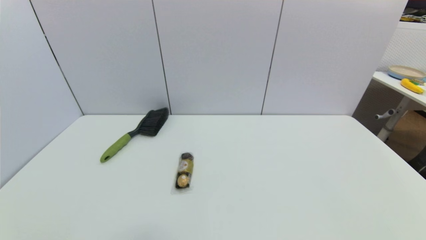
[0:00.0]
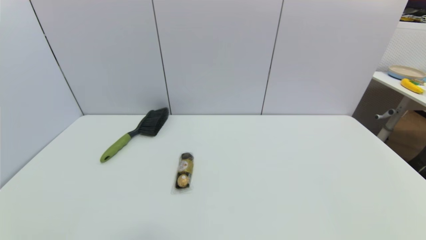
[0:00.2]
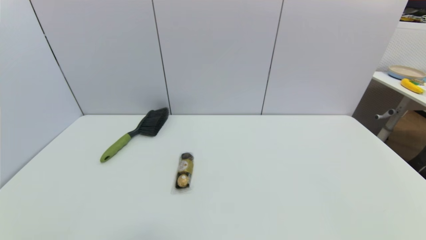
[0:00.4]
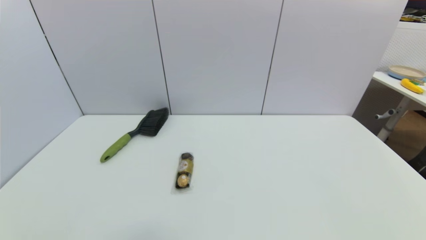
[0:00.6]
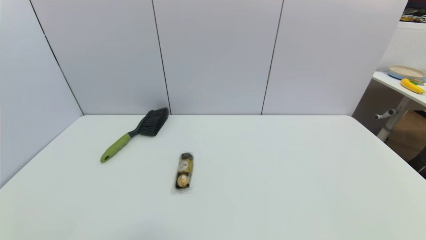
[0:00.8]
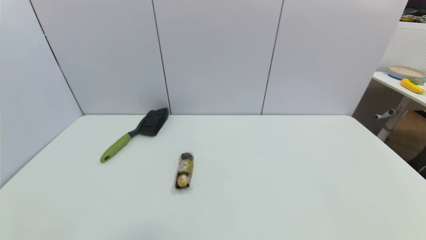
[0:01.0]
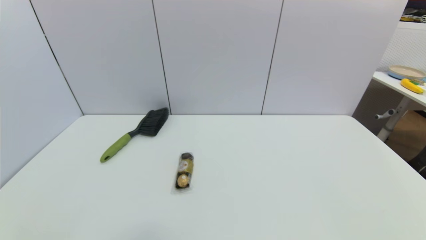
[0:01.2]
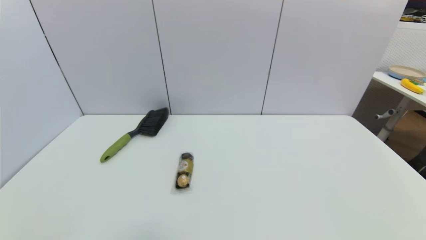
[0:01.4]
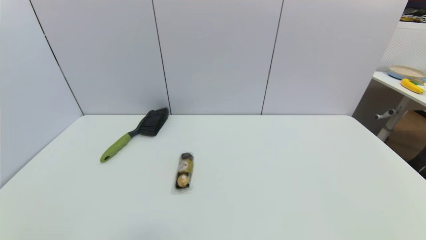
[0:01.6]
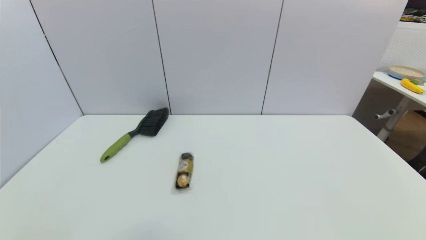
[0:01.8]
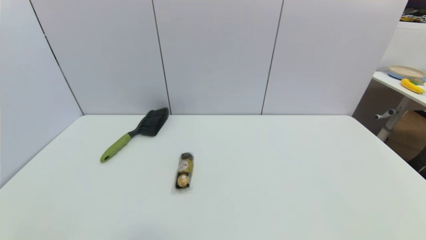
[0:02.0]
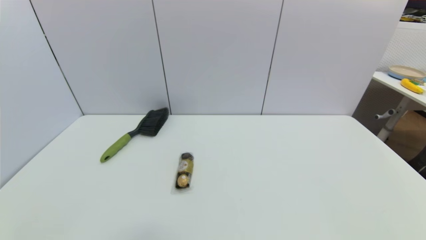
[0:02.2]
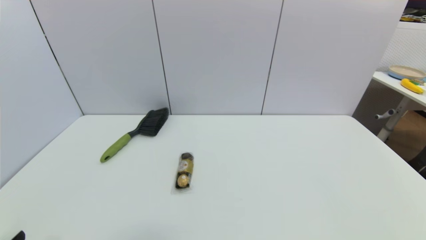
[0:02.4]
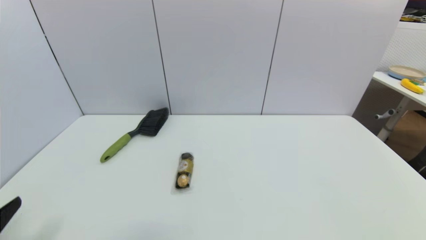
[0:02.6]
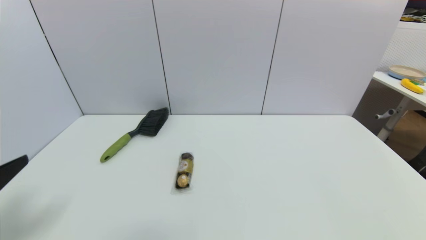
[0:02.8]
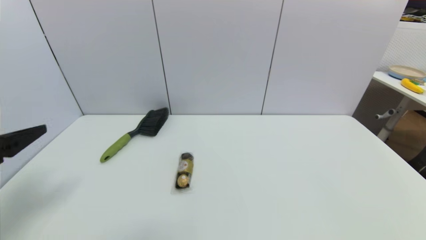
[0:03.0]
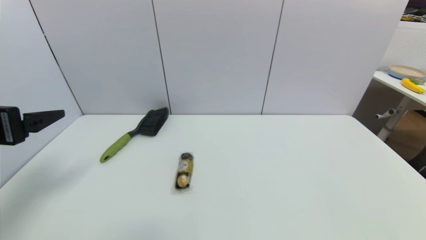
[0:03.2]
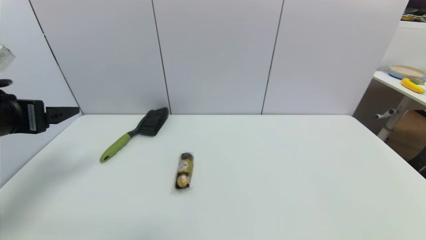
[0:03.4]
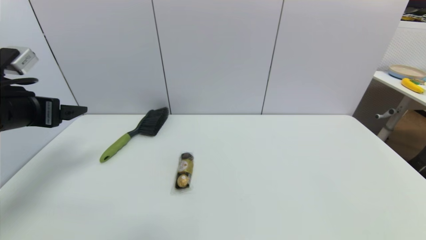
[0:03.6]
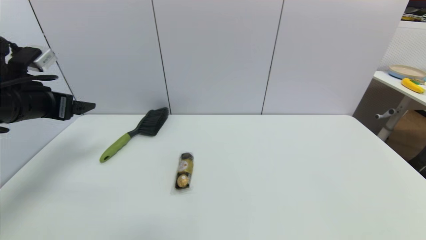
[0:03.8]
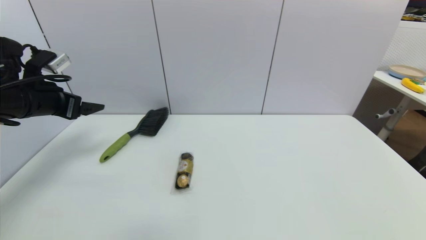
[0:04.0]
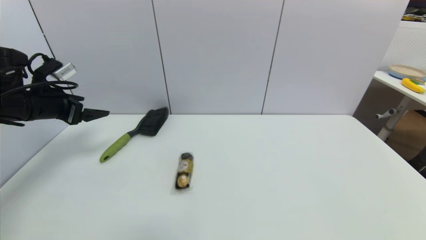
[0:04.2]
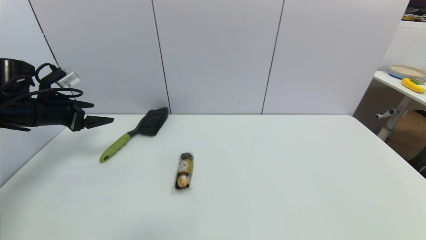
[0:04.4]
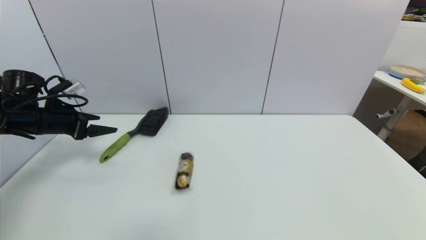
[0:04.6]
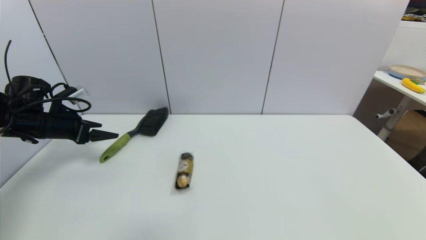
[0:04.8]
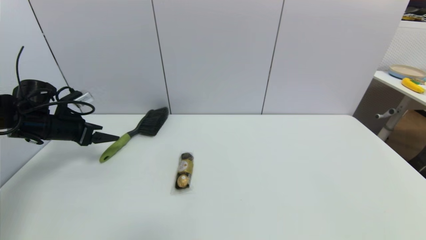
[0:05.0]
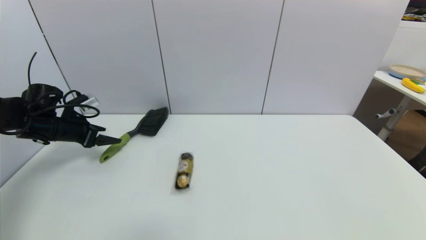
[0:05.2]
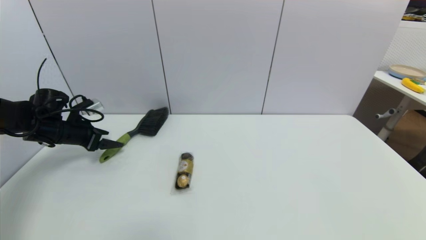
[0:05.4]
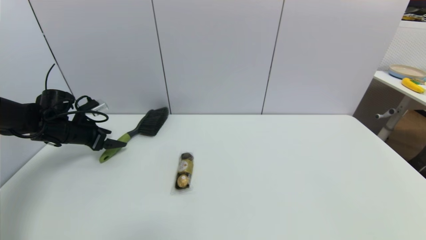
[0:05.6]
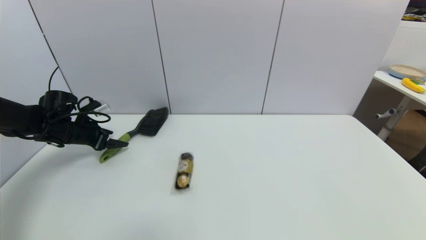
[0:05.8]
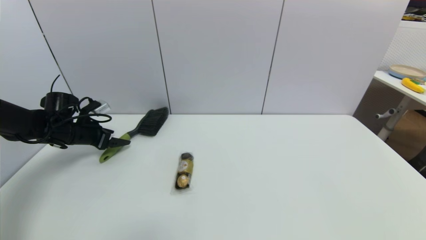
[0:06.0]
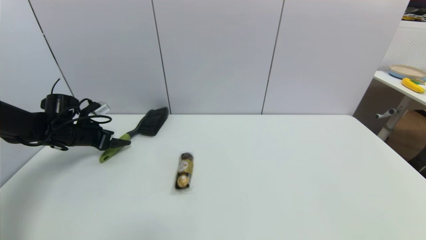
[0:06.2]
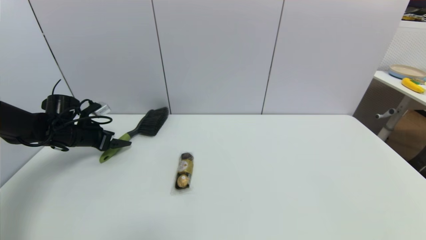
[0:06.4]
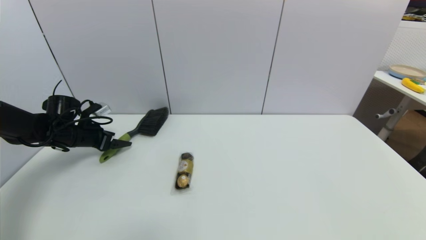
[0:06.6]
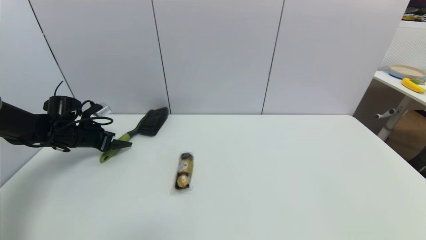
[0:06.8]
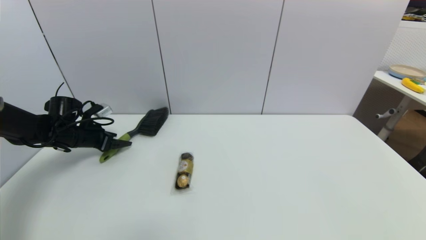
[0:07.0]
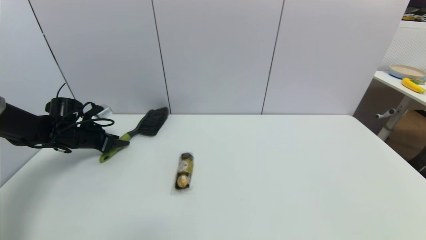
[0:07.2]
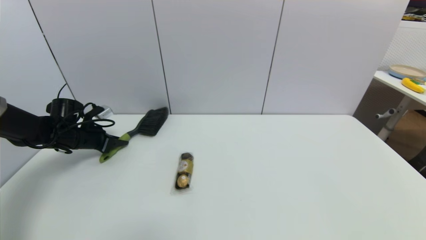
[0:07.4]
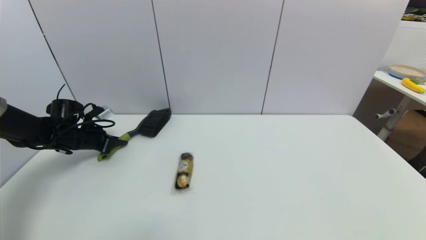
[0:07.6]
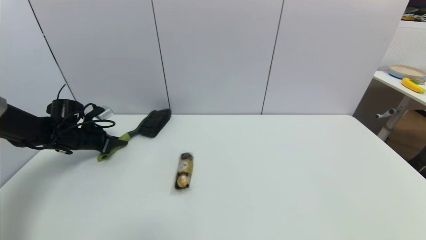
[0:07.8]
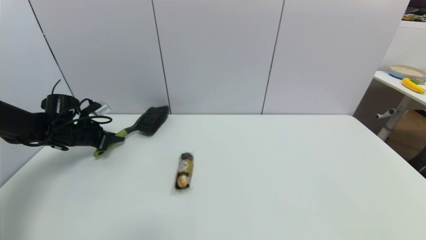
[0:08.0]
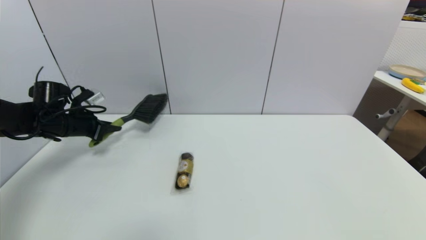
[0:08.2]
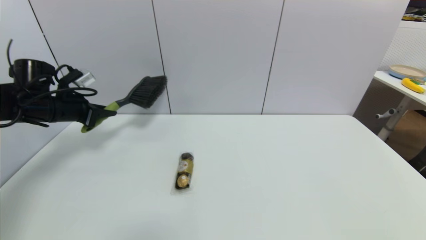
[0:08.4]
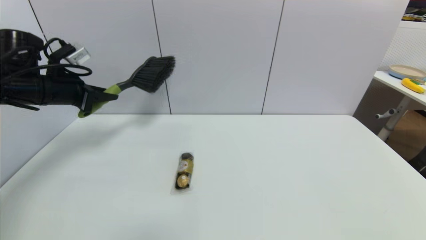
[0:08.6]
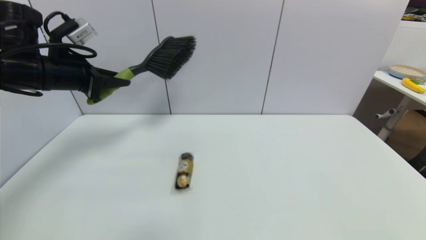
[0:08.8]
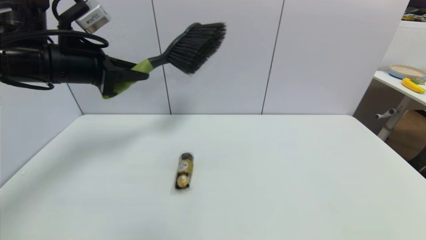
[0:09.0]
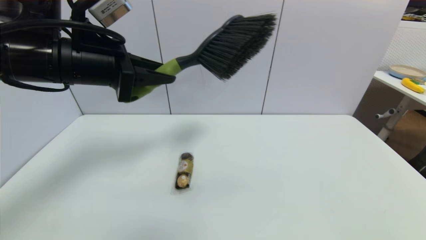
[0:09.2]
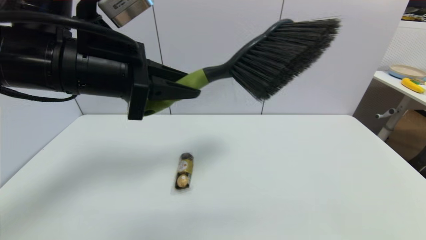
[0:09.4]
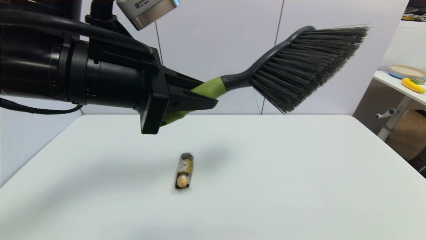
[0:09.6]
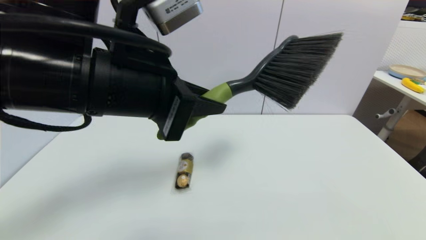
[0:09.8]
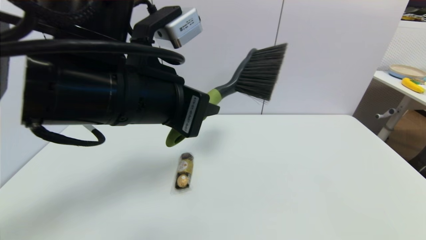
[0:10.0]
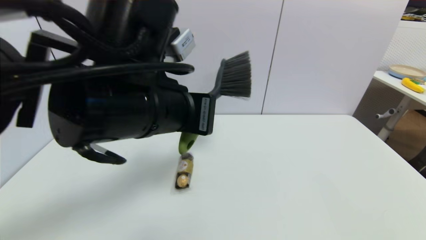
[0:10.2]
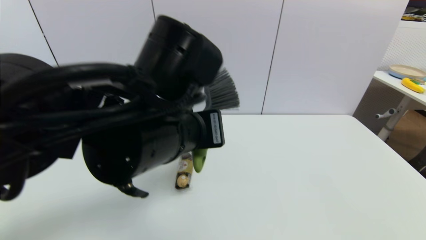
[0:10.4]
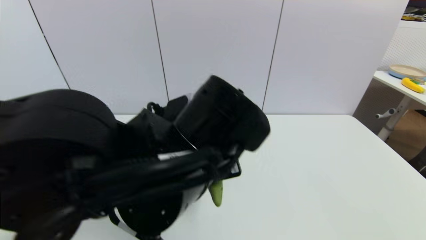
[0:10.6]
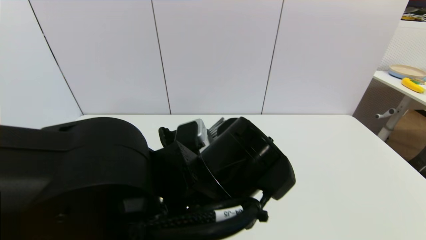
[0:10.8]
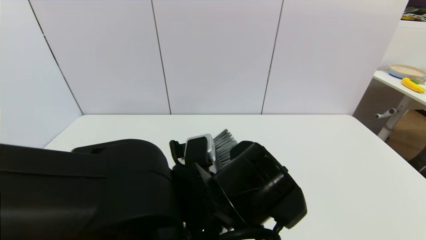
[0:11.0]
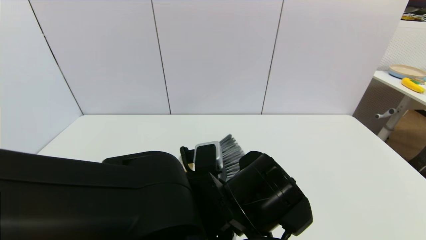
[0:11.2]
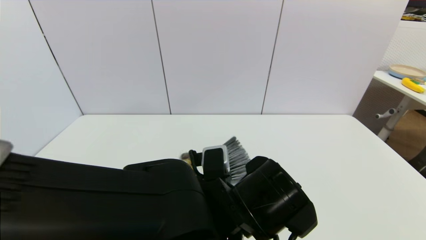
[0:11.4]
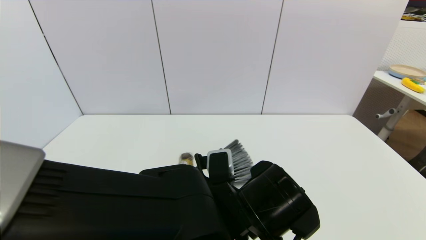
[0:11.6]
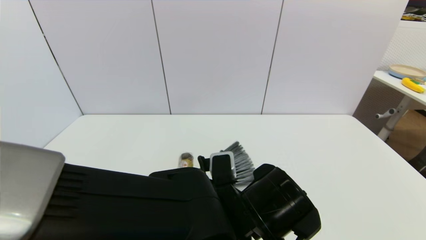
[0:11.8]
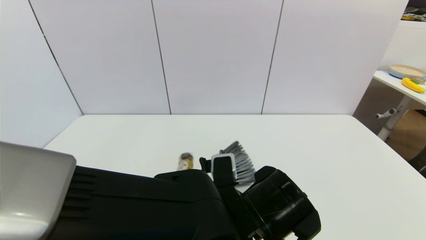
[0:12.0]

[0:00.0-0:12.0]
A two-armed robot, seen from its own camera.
Task of the whole recording: put the brush in the designated position.
Step, 0:02.4 to 0:08.2: Grasp the brush with left gripper.
0:00.0 to 0:01.6: The two grippers keep their place.
0:01.6 to 0:03.0: The left gripper moves upward and forward, about 25 cm.
0:03.0 to 0:04.4: The left gripper moves forward, roughly 20 cm.
0:04.4 to 0:06.0: The left gripper moves downward and forward, roughly 10 cm.
0:06.0 to 0:07.6: The left gripper closes up.
0:07.6 to 0:09.0: The left gripper shifts approximately 30 cm upward, to the right and backward.
0:09.0 to 0:10.4: The left gripper heads to the right and backward, covering about 20 cm.
0:10.4 to 0:12.0: The left gripper shifts roughly 15 cm downward and to the right.

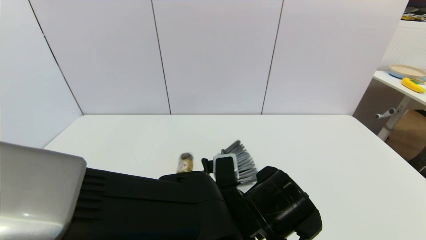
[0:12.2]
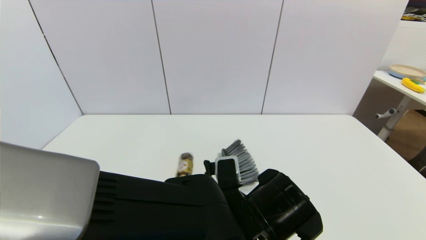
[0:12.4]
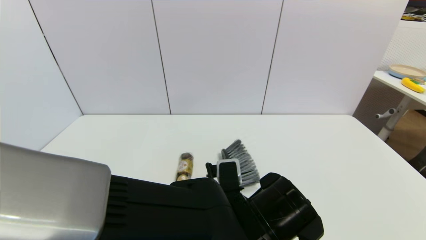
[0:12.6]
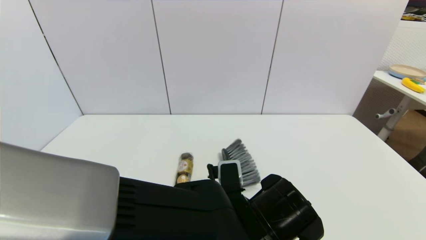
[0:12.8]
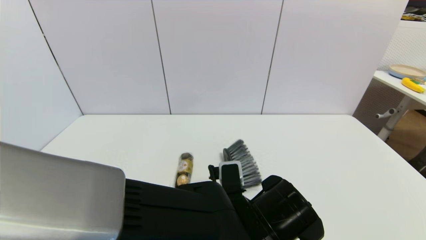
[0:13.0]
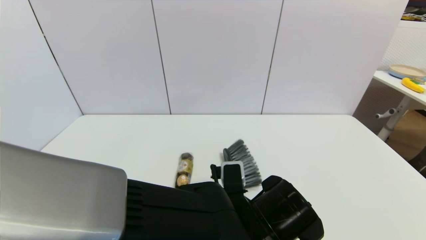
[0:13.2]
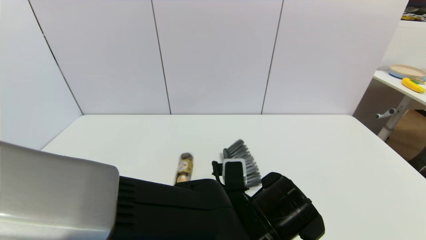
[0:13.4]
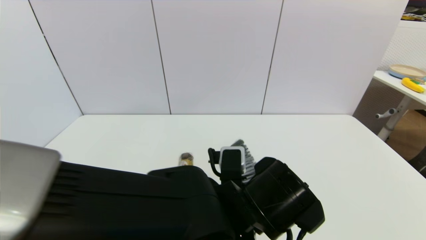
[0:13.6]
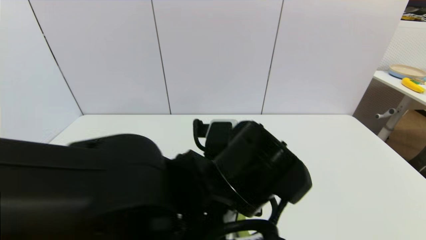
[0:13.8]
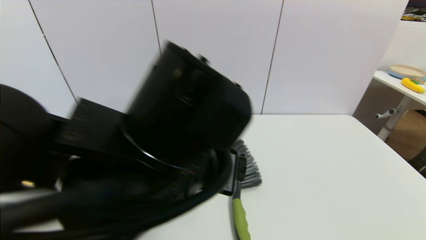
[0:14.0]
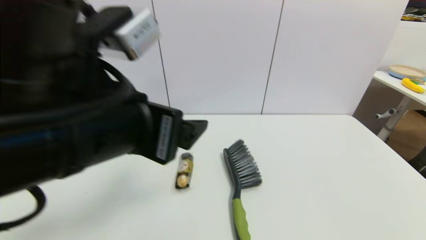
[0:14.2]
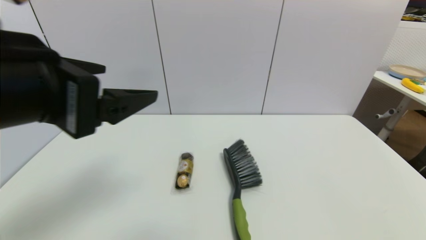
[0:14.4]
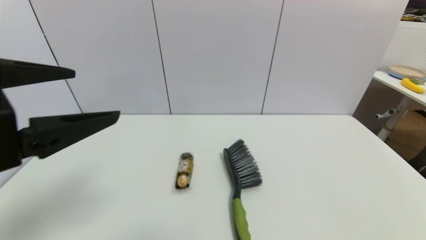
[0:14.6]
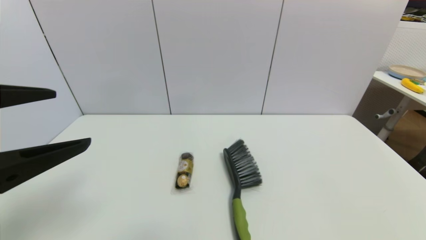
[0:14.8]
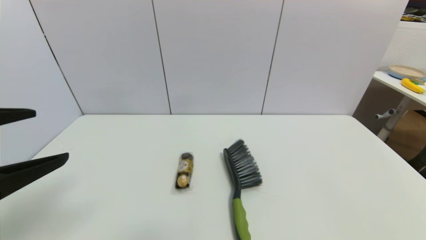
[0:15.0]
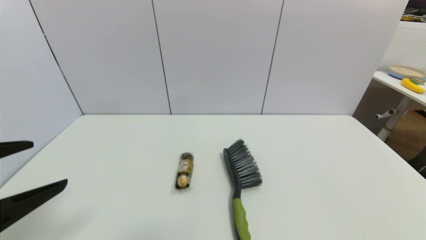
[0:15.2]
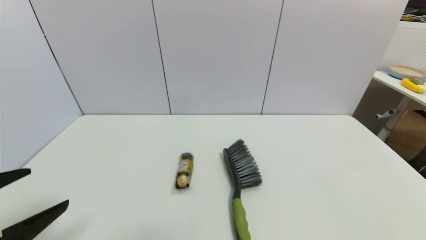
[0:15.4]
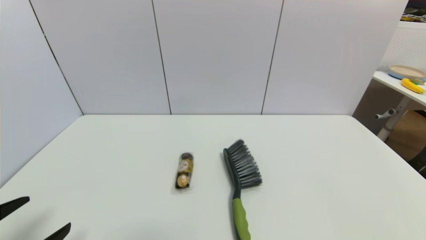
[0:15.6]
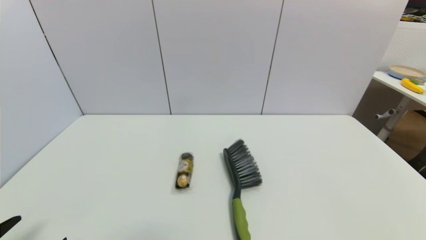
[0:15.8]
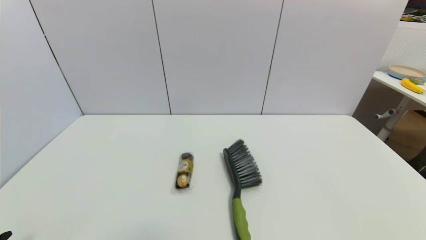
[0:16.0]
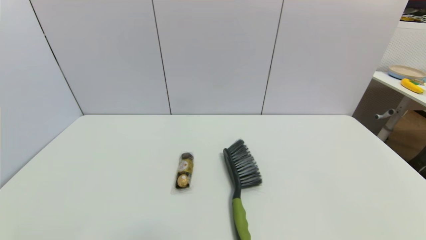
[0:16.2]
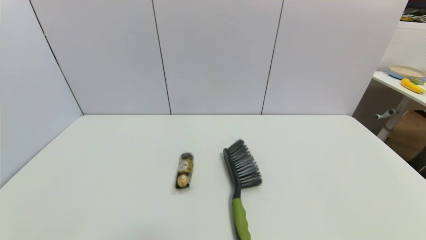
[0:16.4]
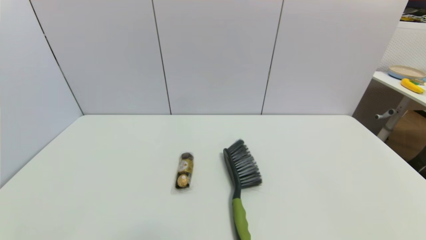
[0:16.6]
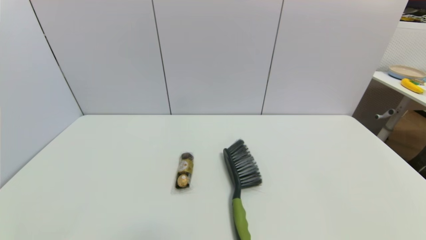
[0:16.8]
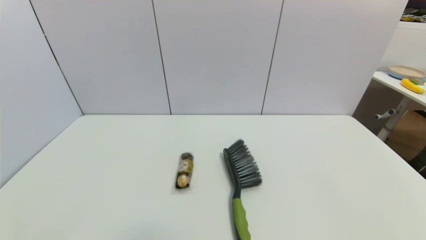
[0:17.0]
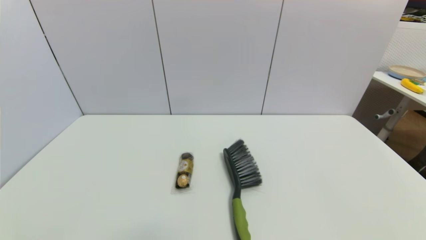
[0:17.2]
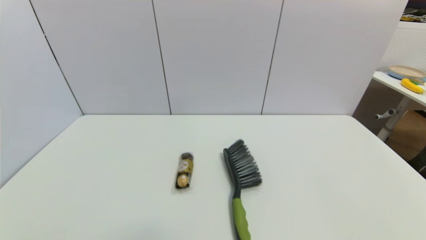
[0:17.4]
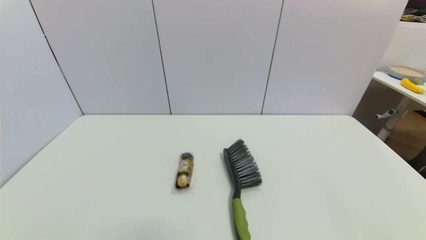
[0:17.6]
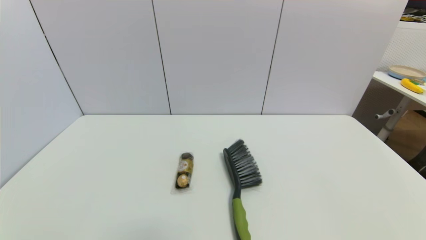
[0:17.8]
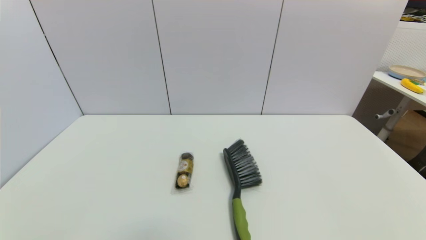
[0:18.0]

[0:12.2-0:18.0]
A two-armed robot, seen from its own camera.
Task of the whole recording: put the brush in the designated position.
0:12.2 to 0:13.6: The left gripper opens its fingers.
0:13.6 to 0:15.0: The left gripper goes some 35 cm to the left and upward.
0:15.0 to 0:16.6: The left gripper moves downward and backward, approximately 25 cm.
0:16.6 to 0:18.0: Both grippers stay about where they are.
